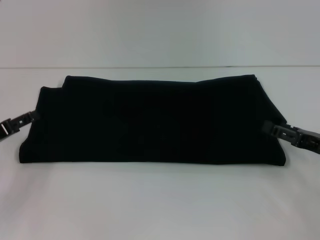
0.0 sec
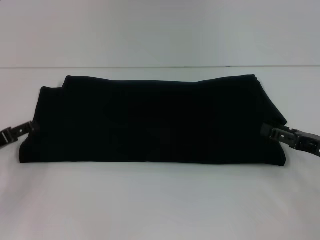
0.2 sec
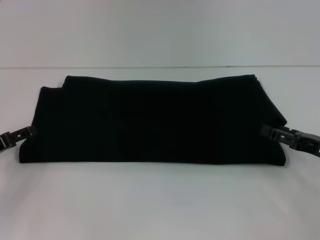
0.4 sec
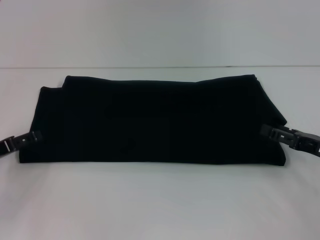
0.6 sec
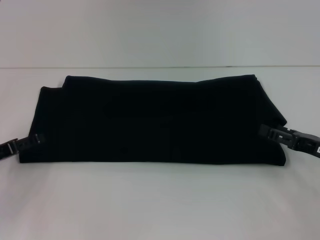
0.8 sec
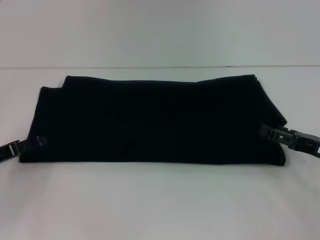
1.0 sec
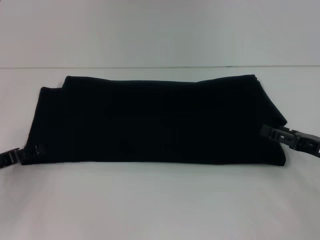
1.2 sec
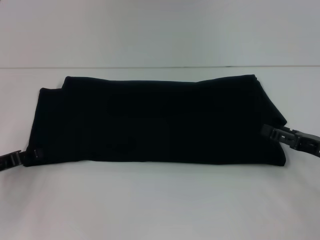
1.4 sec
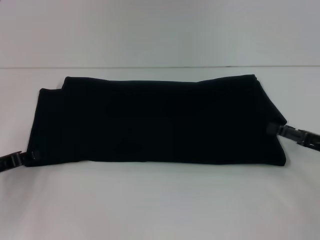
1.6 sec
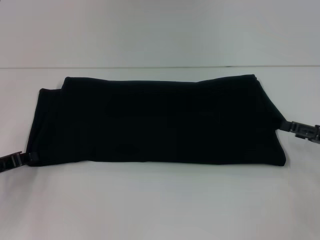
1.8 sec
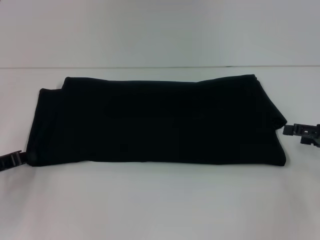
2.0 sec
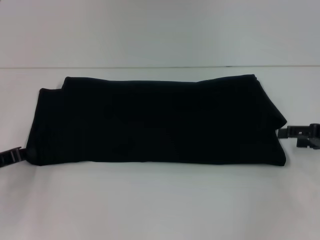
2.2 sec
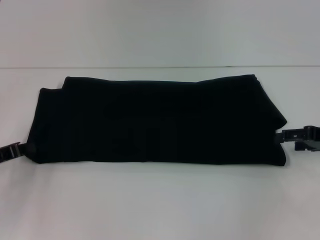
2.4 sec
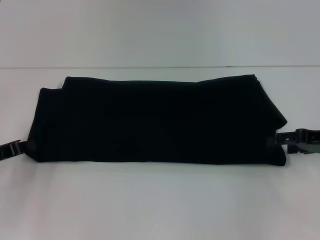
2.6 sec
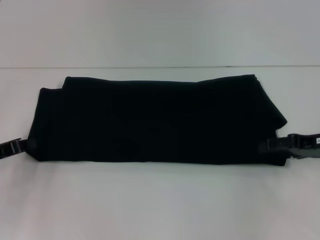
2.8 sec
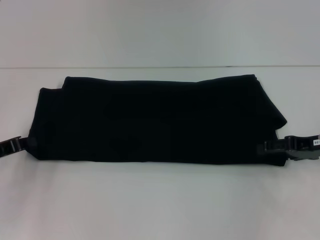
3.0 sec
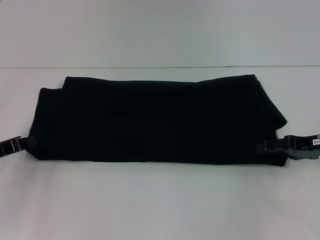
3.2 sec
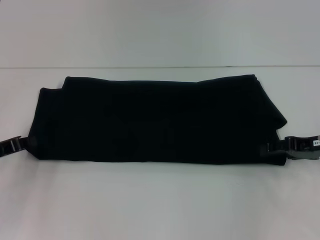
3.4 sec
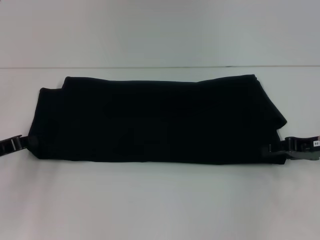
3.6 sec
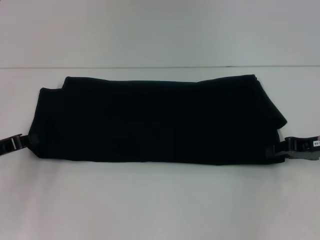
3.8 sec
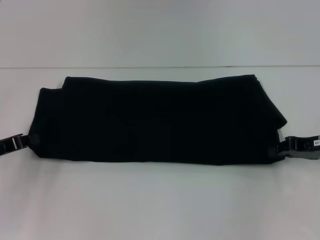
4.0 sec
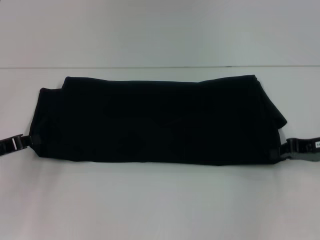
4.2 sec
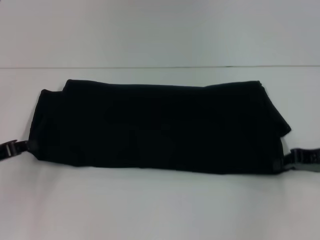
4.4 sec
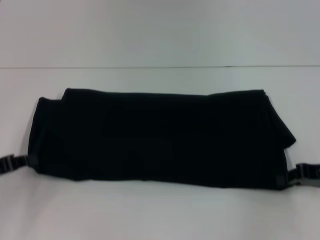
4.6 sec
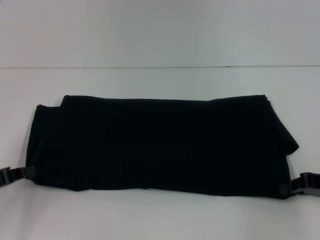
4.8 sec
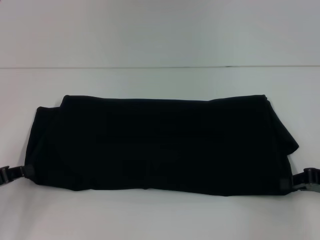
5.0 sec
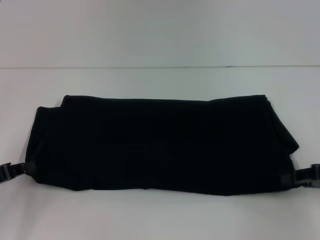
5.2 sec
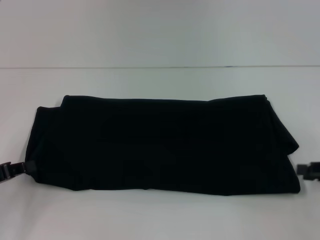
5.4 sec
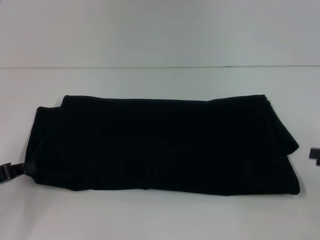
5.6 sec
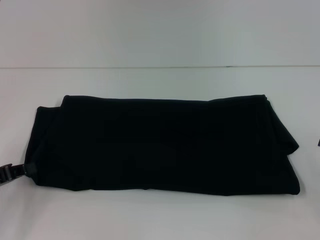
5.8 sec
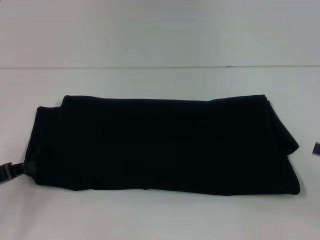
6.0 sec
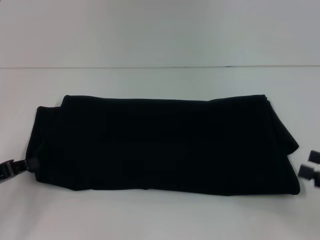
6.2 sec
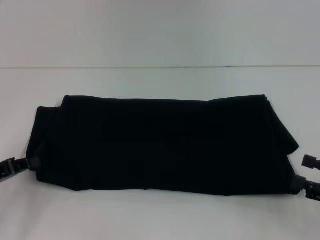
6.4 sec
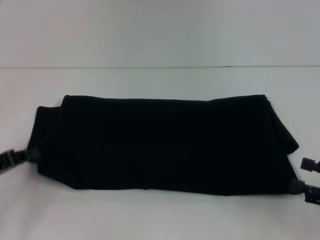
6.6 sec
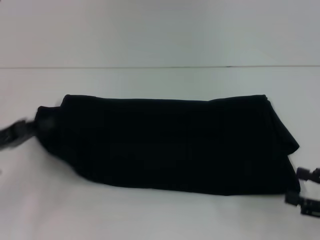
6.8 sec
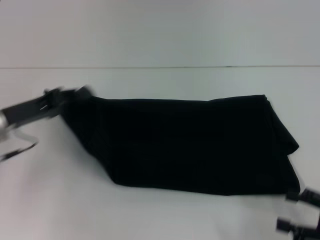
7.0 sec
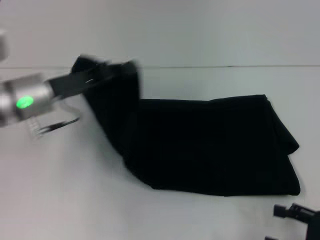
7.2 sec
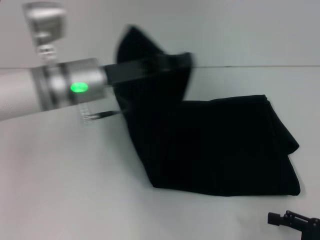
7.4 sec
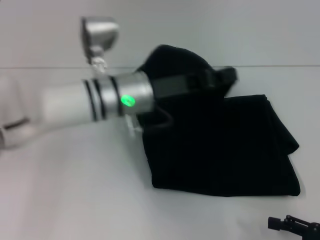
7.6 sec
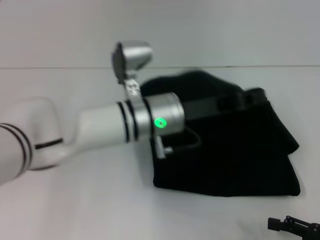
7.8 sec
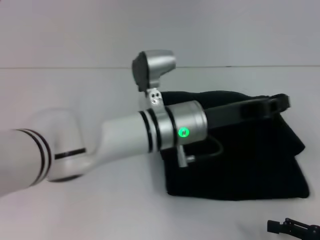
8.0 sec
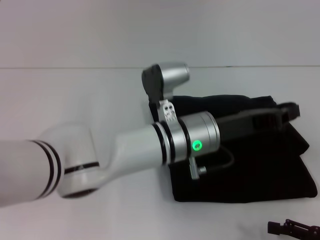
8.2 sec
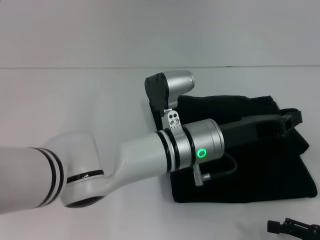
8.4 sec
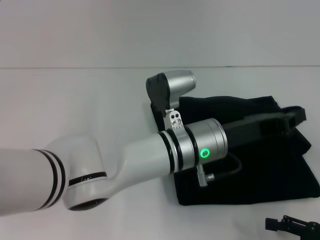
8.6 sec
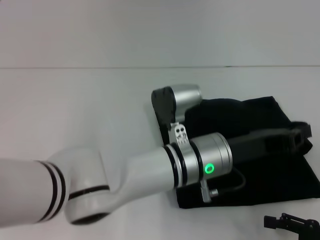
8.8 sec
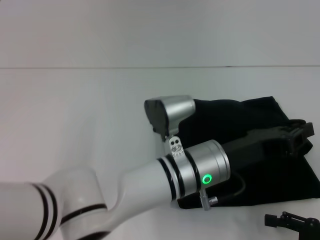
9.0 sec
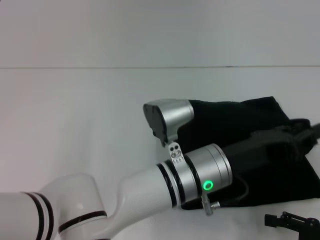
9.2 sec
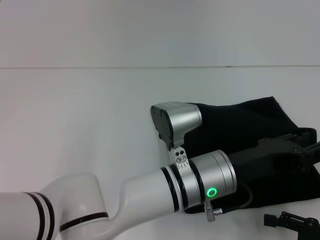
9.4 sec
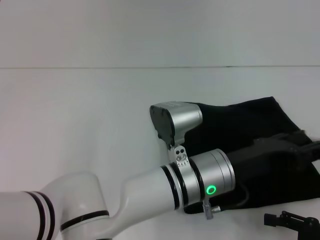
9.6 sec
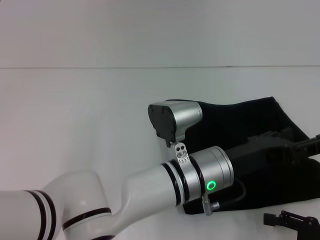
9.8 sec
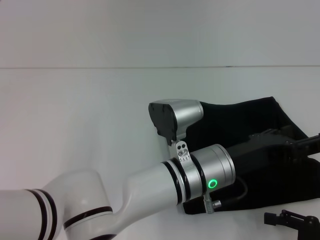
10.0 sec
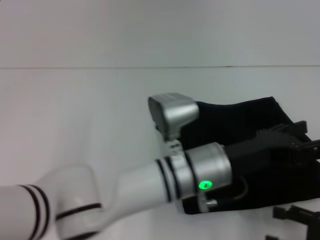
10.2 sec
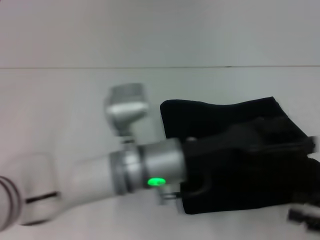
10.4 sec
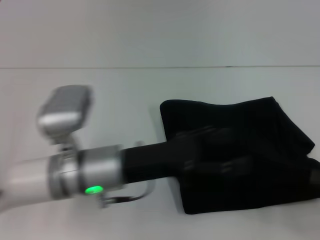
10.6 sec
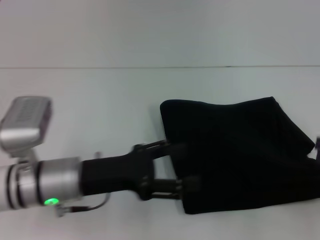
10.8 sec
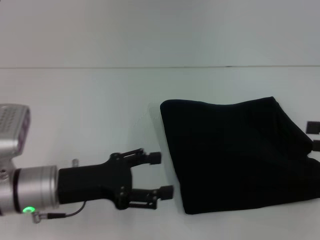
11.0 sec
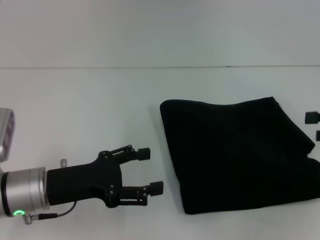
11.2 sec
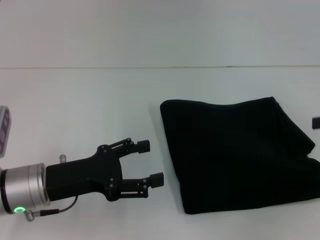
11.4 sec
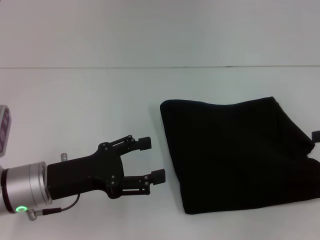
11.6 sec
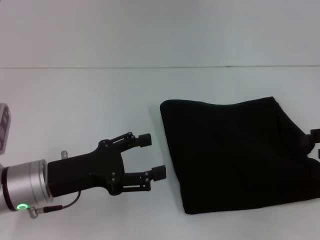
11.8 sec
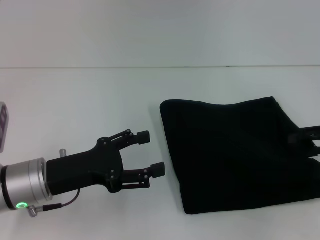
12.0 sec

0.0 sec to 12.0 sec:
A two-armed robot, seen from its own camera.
Step, 0.0 sec to 10.4 sec: Fold the clothes with your left hand.
0.0 sec to 1.6 sec: The left gripper closes.
1.6 sec to 3.0 sec: The right gripper goes approximately 5 cm forward; the left gripper closes up.
3.0 sec to 4.4 sec: The right gripper closes.
4.4 sec to 6.0 sec: The right gripper travels backward and to the right by some 10 cm, and opens its fingers.
6.0 sec to 7.6 sec: The right gripper travels backward, to the left and downward by approximately 10 cm, while the left gripper is displaced to the right and forward by roughly 30 cm.
7.6 sec to 9.0 sec: The left gripper goes roughly 15 cm to the right, backward and downward.
9.0 sec to 10.4 sec: The left gripper goes roughly 5 cm to the left, and opens up.
10.4 sec to 12.0 sec: The right gripper shifts about 15 cm forward and upward. Meanwhile the left gripper is displaced to the left by about 15 cm.

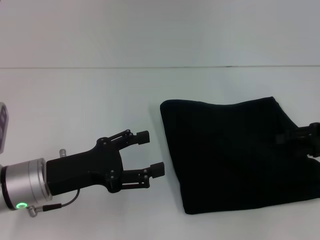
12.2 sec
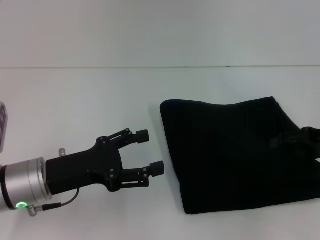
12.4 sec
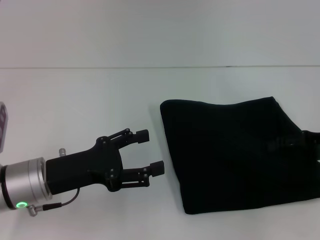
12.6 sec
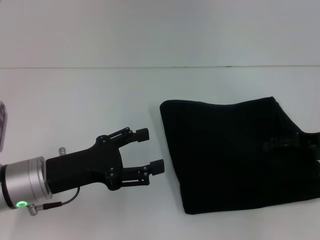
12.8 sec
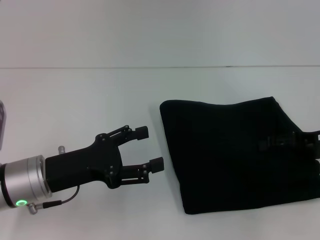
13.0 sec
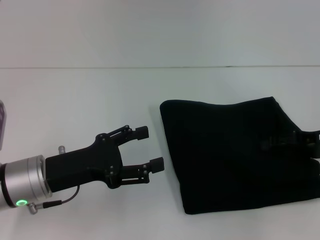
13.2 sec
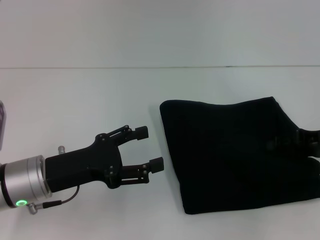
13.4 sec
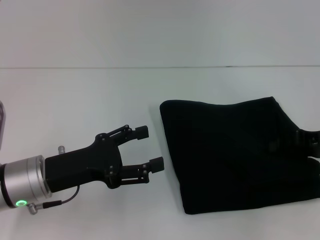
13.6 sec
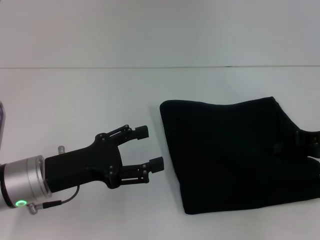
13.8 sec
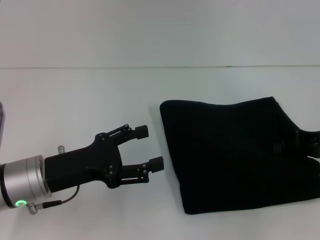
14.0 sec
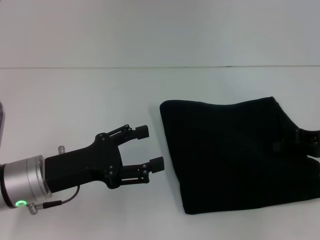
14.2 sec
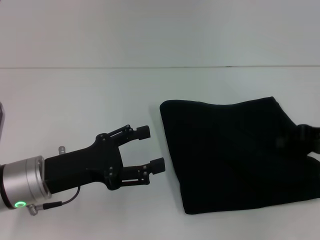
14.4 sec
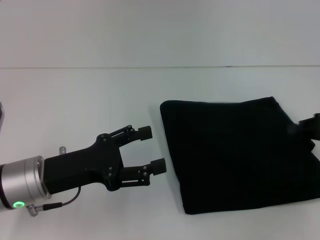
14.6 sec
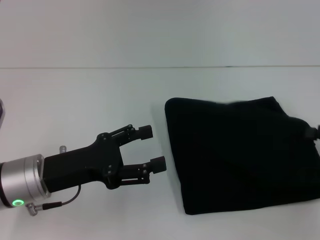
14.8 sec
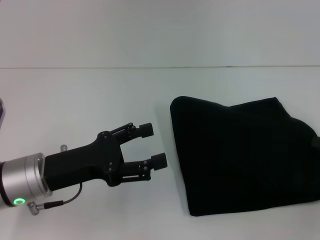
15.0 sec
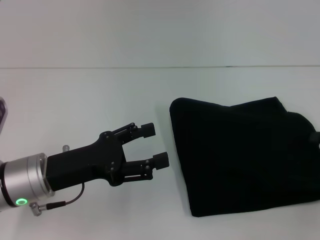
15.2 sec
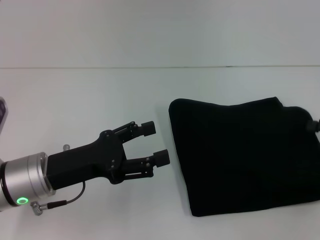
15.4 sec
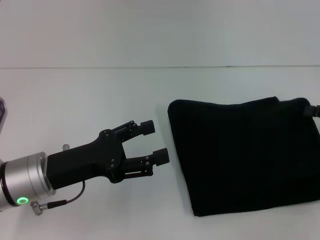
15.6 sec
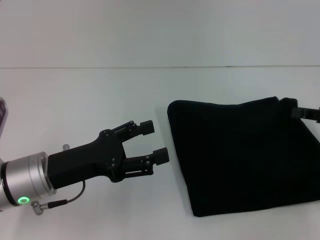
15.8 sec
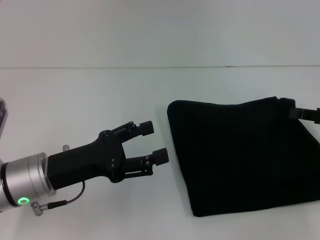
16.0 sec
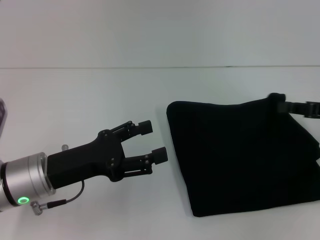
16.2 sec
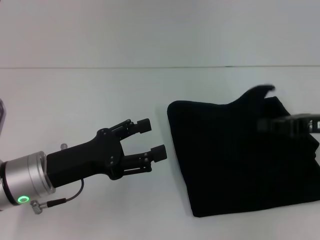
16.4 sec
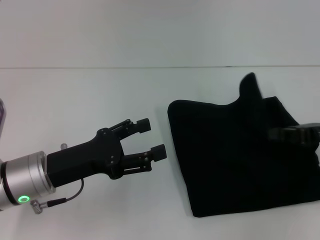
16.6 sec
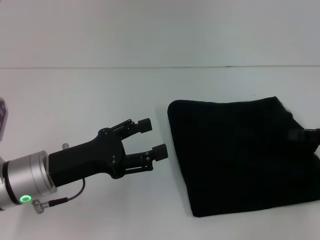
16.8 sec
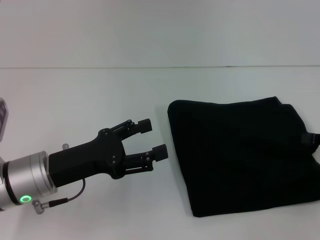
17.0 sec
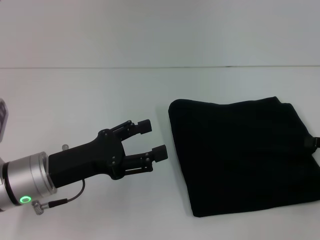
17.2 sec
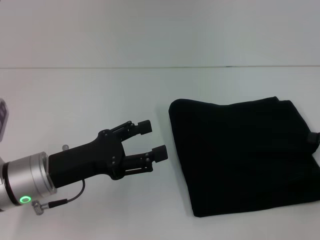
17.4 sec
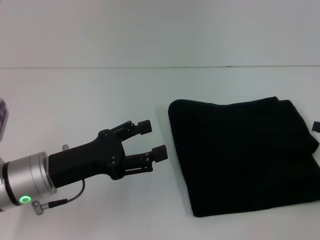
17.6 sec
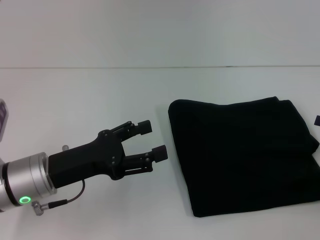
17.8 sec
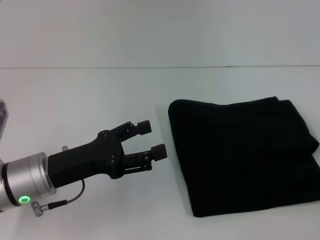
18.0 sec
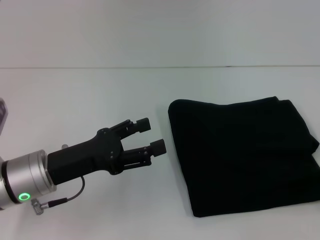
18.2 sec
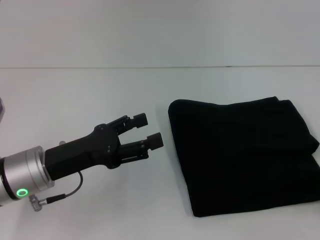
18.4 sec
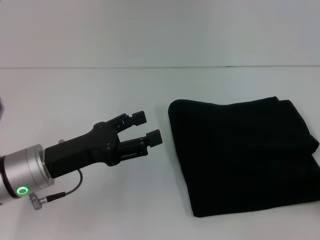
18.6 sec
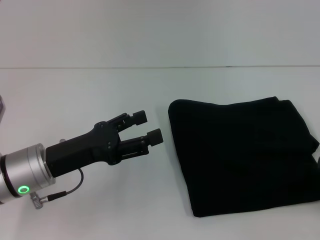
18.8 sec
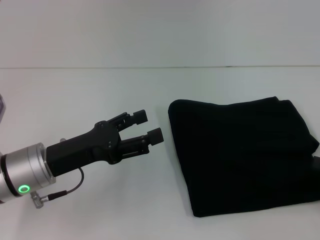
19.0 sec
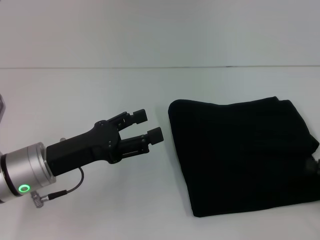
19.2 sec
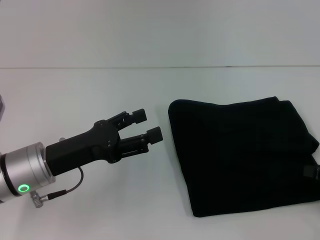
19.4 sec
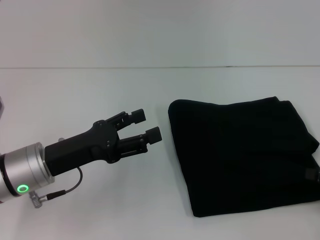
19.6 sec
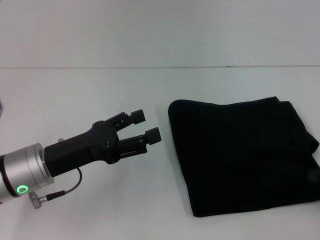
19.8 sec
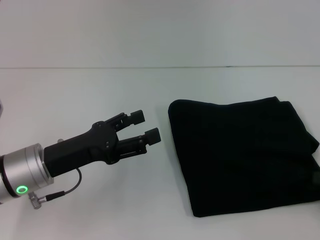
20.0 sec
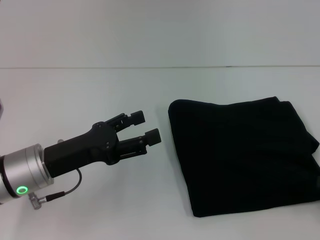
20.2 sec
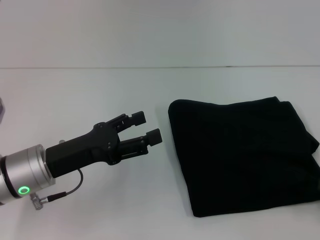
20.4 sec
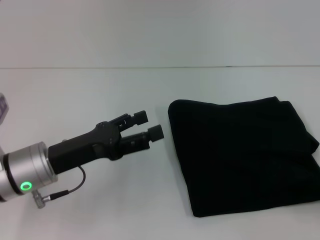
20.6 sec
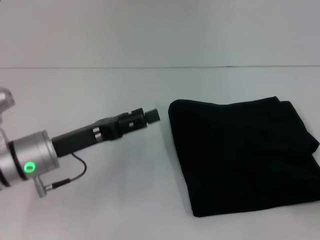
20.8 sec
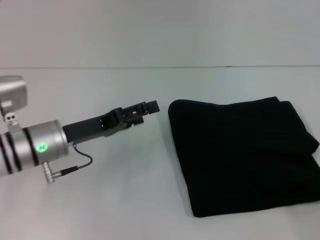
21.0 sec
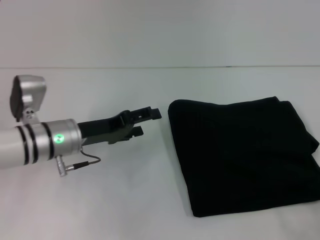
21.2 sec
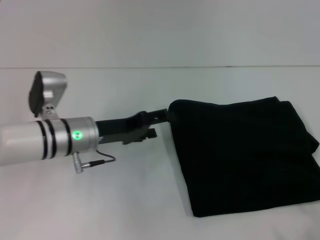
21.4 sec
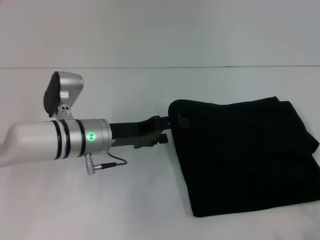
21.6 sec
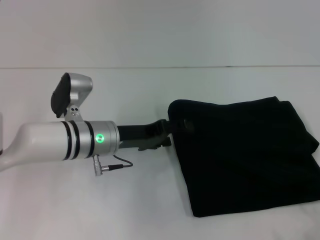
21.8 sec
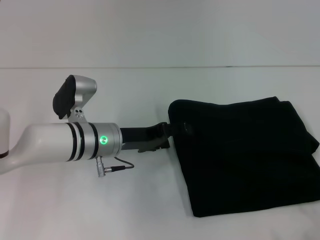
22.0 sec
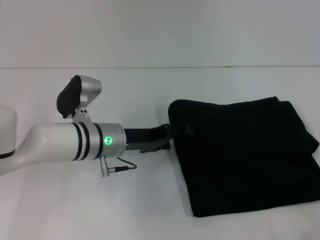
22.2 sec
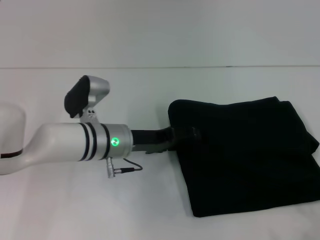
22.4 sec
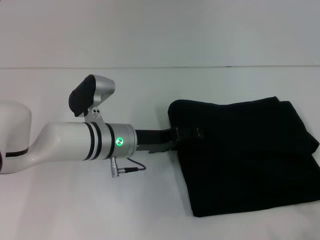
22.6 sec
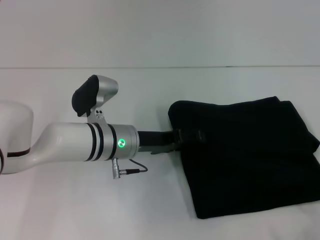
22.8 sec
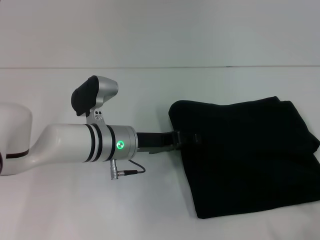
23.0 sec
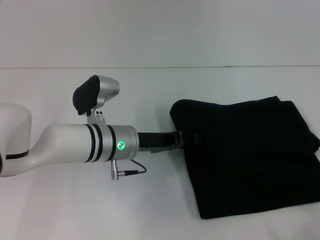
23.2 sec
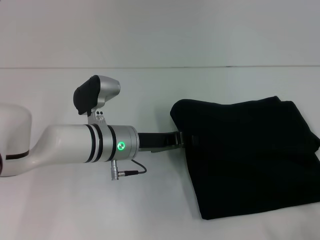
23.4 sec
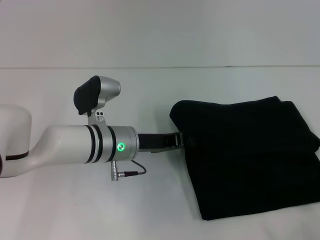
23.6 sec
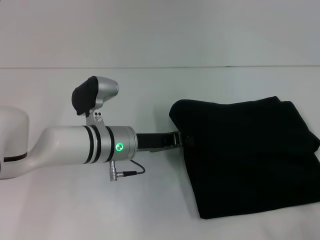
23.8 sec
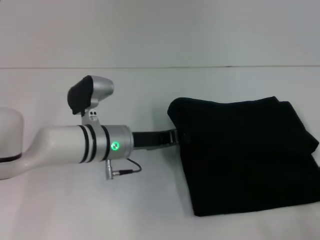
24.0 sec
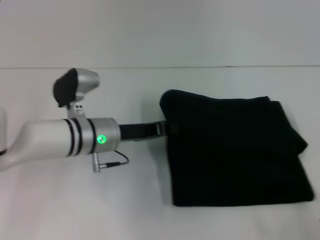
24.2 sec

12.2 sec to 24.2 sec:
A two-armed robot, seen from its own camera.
12.2 sec to 13.8 sec: The right gripper closes up.
13.8 sec to 15.2 sec: The right gripper goes some 5 cm to the right.
15.2 sec to 16.6 sec: The right gripper is displaced to the left by roughly 5 cm.
16.6 sec to 18.2 sec: The right gripper travels to the right and backward by some 15 cm, and opens up.
18.2 sec to 19.8 sec: There are only small adjustments of the grippers.
19.8 sec to 21.2 sec: The right gripper goes some 10 cm backward, and closes, then opens again. Meanwhile the left gripper goes approximately 5 cm forward.
21.2 sec to 22.6 sec: The left gripper travels to the right by some 10 cm; the right gripper opens its fingers.
22.6 sec to 24.2 sec: The left gripper closes up.
